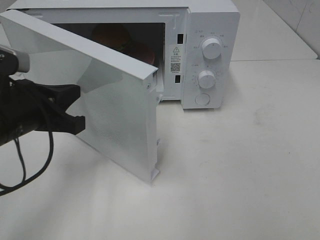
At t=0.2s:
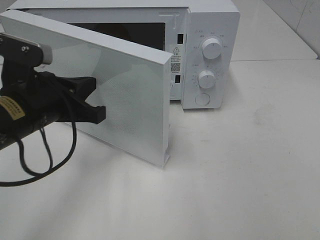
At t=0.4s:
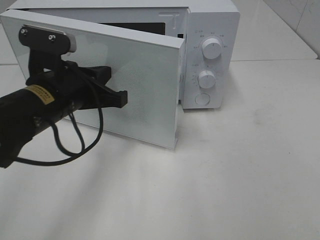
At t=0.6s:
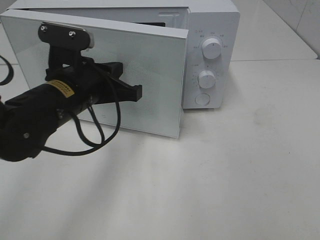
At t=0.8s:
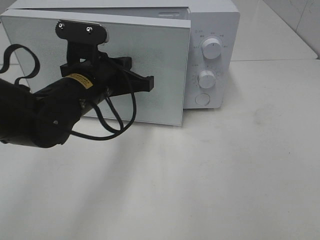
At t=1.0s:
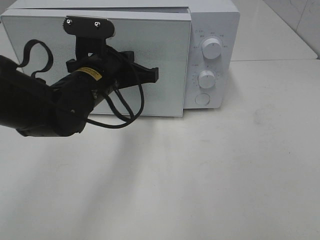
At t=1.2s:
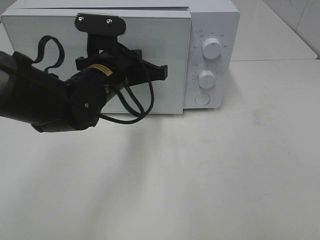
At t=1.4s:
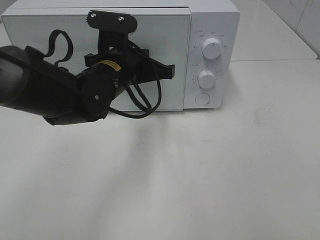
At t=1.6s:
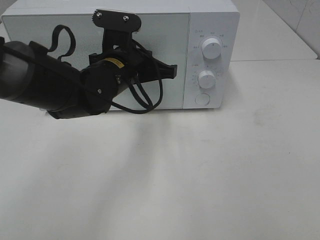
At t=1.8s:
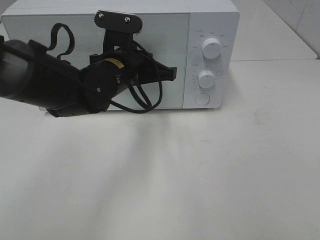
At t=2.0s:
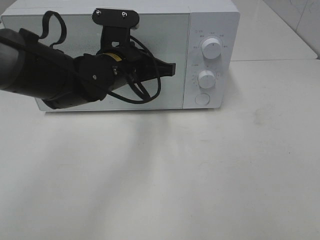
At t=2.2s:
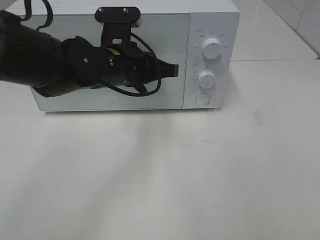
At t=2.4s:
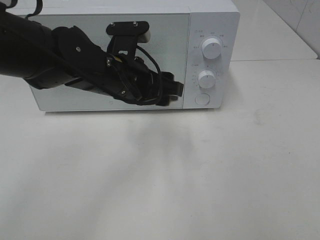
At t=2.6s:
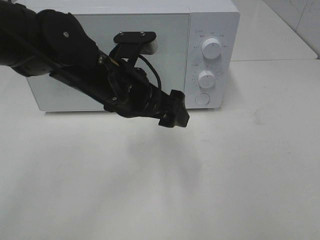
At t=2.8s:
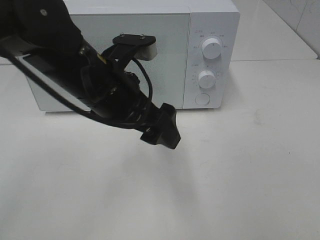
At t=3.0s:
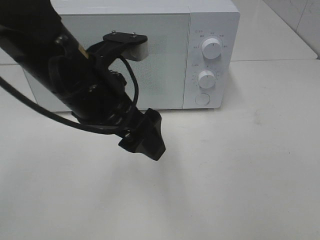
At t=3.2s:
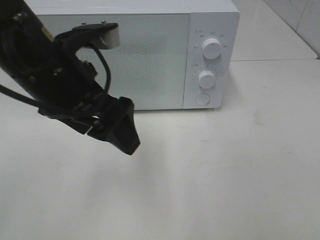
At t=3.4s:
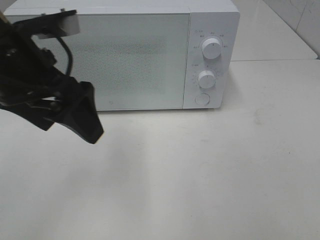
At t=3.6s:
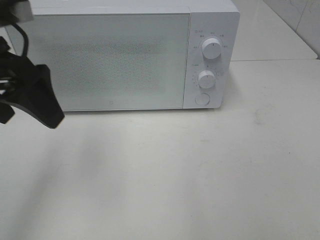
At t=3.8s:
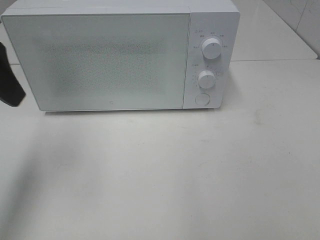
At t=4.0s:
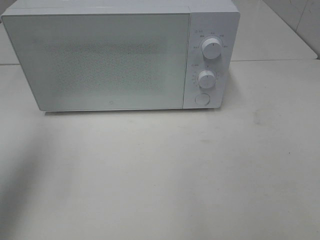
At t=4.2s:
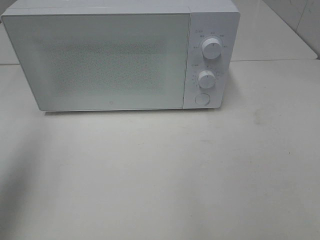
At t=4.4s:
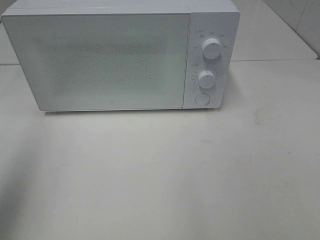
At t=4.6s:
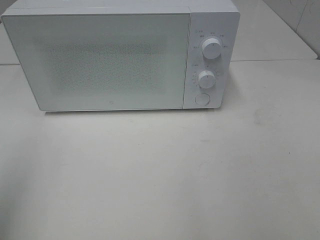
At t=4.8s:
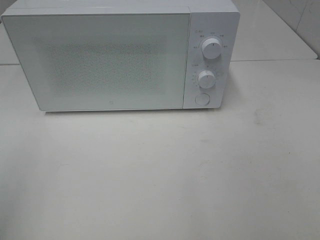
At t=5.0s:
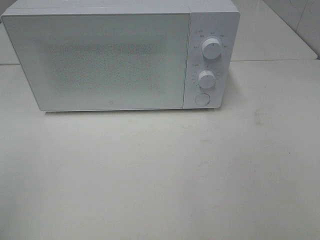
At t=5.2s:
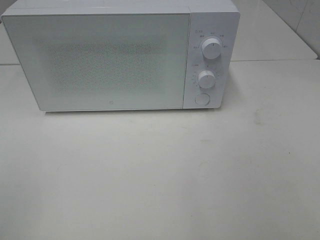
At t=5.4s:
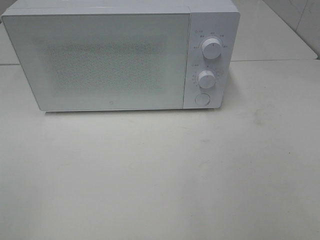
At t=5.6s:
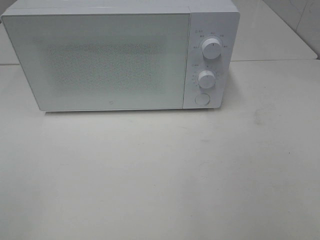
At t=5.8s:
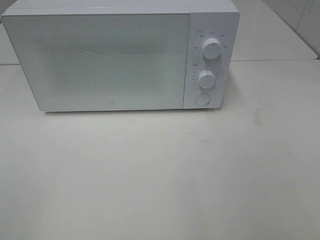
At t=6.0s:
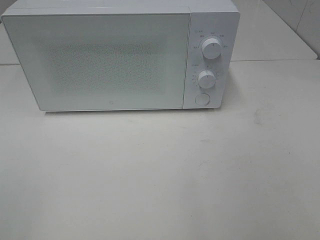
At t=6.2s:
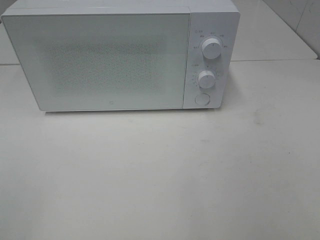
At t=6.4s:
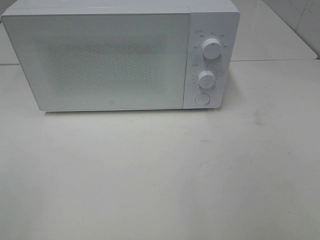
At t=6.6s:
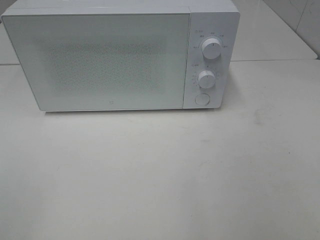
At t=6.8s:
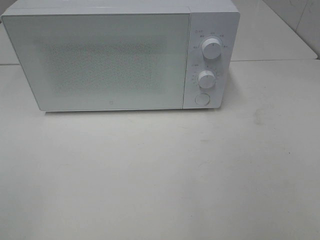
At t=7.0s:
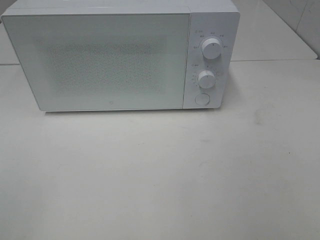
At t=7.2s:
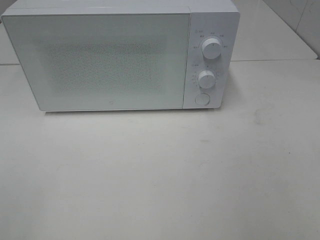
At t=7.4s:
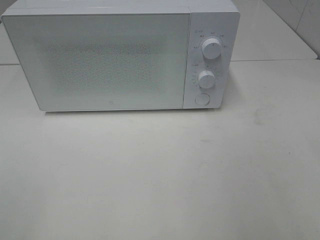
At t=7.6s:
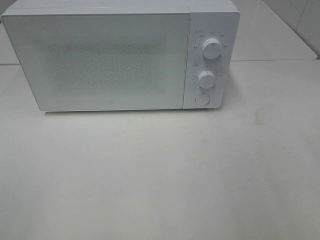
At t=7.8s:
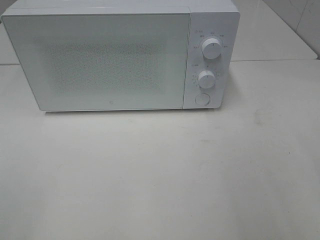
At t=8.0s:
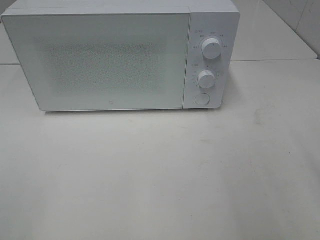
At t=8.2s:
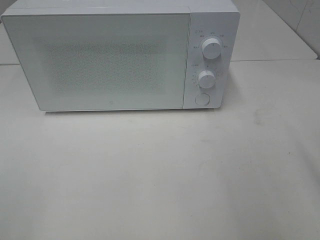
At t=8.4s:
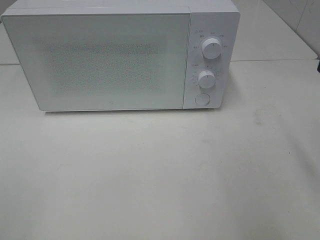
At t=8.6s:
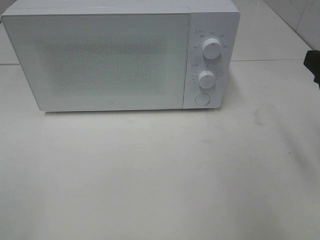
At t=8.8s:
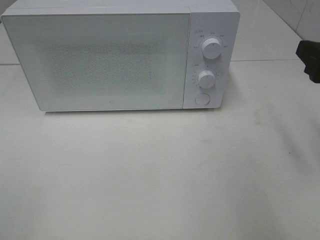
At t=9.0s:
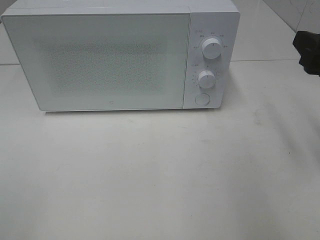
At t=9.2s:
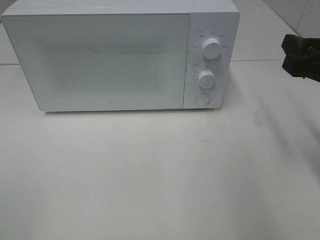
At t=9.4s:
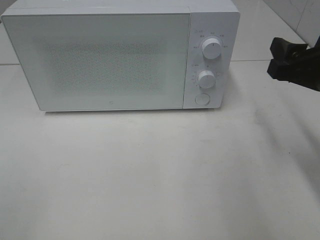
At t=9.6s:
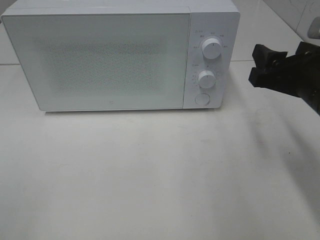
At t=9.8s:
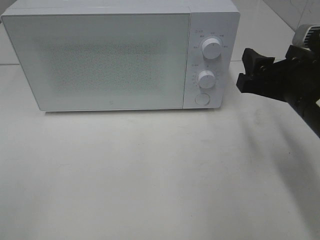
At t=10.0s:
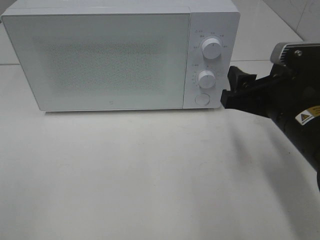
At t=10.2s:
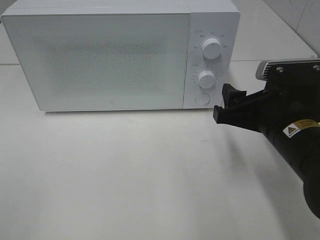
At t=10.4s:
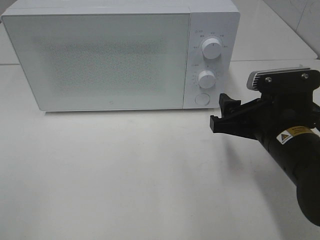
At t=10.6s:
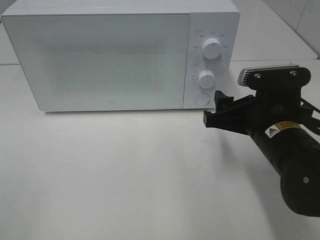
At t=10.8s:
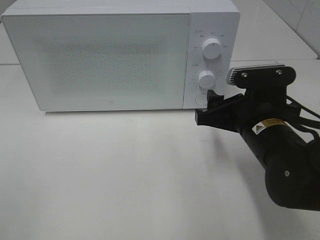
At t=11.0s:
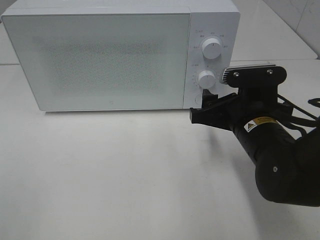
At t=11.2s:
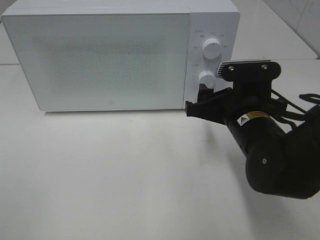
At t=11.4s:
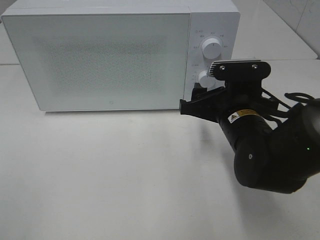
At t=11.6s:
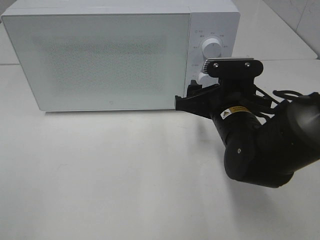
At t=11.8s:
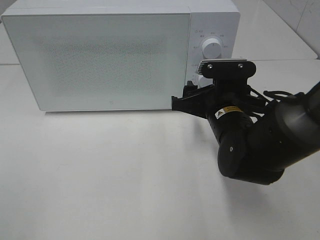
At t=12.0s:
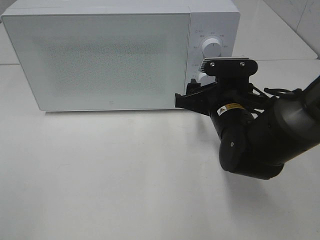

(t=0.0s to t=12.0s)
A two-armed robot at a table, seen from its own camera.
Task of the whole recording: Heat the burger.
Step, t=0.0s - t=2.2s: Left hand: close the microwave door.
t=0.0s - t=1.6s: The left gripper heads to the right and forward, covering some 15 cm.
t=1.6s - t=3.0s: The left gripper travels backward and upward by roughly 15 cm, and opens up.
t=3.0s - t=4.4s: The left gripper goes some 30 cm to the left and upward.
t=4.4s - t=6.0s: The left gripper shifts about 20 cm backward and downward.
t=7.6s - t=9.0s: The right gripper moves forward, approximately 15 cm.
t=9.0s - t=10.4s: The right gripper moves to the left and downward, some 15 cm.
t=10.4s - t=12.0s: The right gripper is displaced forward by about 10 cm.

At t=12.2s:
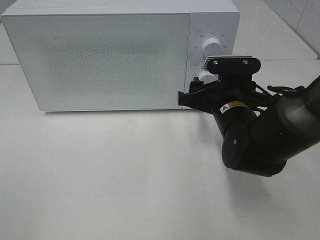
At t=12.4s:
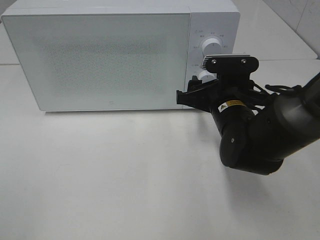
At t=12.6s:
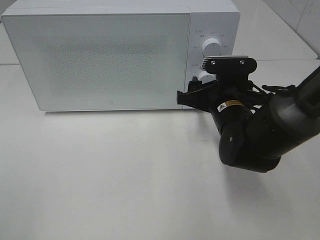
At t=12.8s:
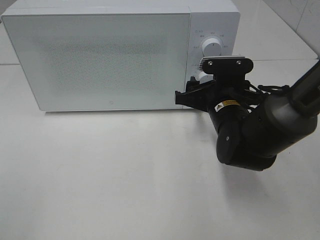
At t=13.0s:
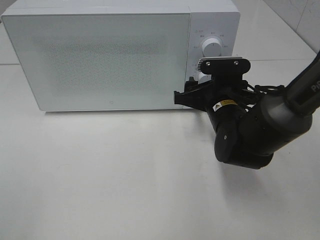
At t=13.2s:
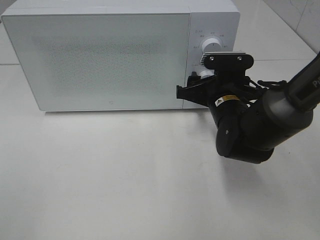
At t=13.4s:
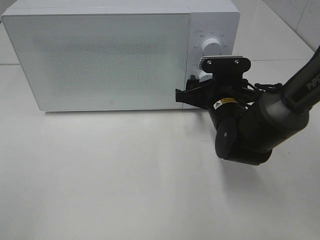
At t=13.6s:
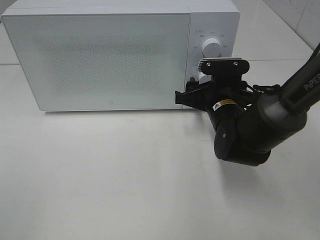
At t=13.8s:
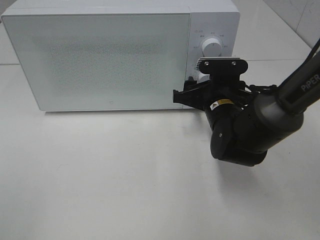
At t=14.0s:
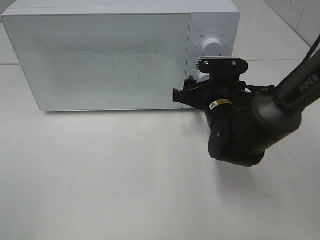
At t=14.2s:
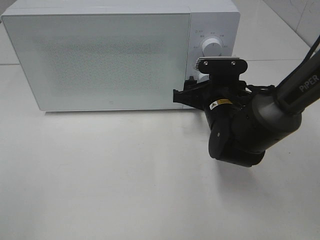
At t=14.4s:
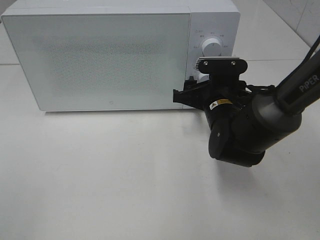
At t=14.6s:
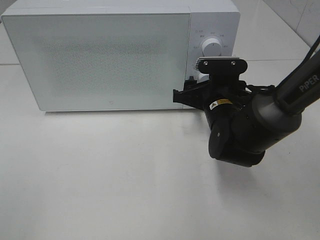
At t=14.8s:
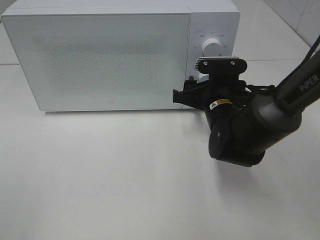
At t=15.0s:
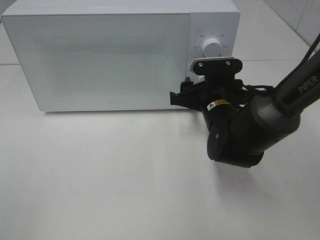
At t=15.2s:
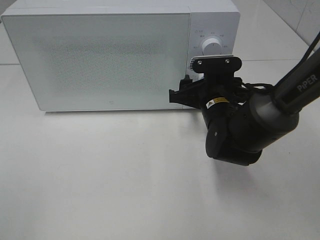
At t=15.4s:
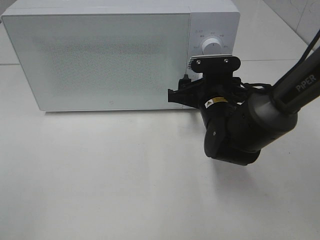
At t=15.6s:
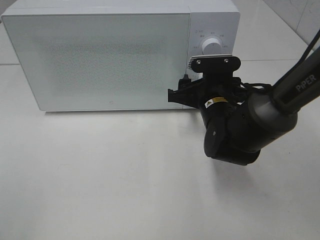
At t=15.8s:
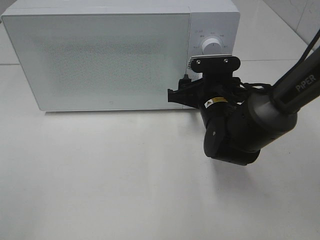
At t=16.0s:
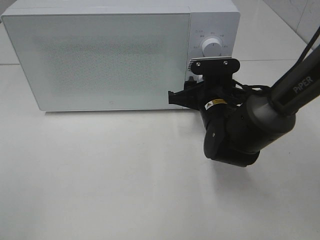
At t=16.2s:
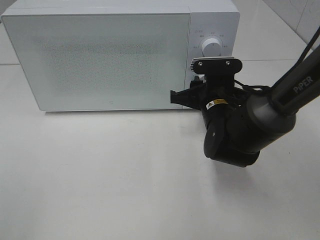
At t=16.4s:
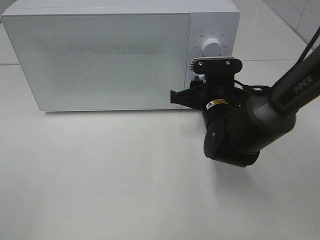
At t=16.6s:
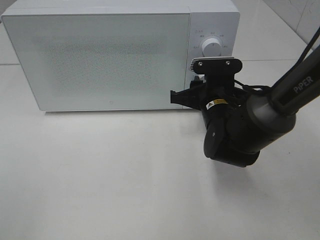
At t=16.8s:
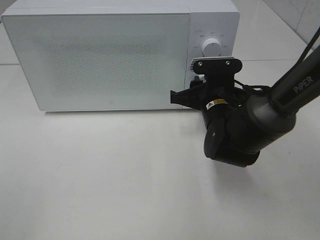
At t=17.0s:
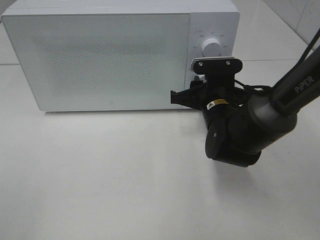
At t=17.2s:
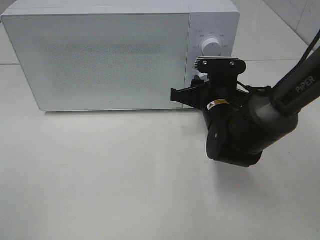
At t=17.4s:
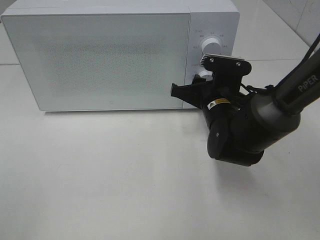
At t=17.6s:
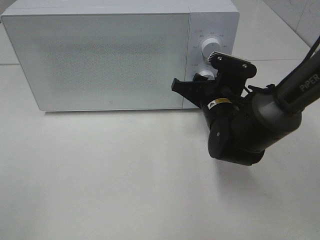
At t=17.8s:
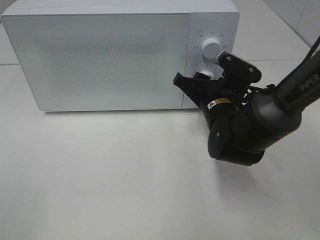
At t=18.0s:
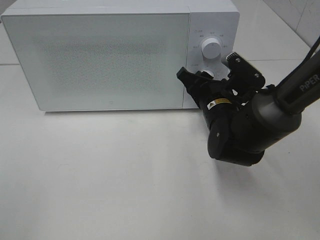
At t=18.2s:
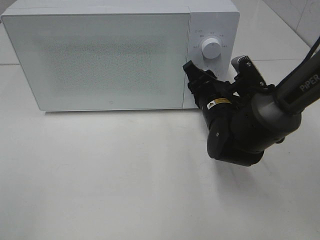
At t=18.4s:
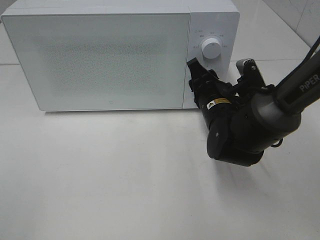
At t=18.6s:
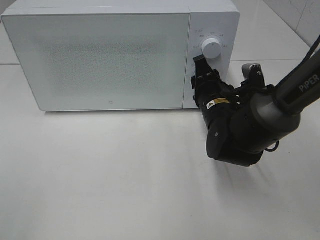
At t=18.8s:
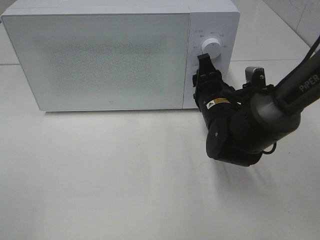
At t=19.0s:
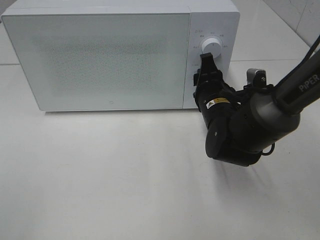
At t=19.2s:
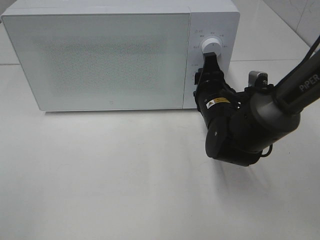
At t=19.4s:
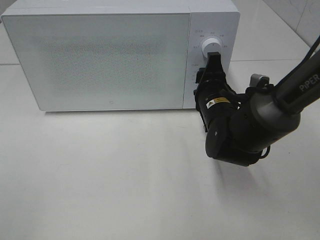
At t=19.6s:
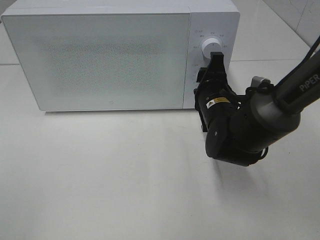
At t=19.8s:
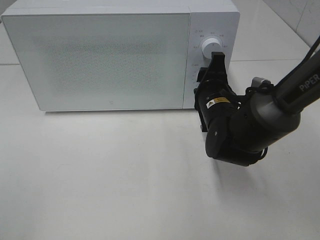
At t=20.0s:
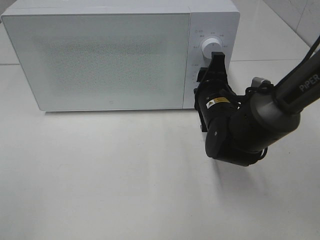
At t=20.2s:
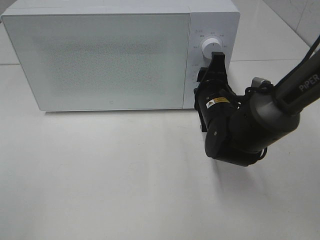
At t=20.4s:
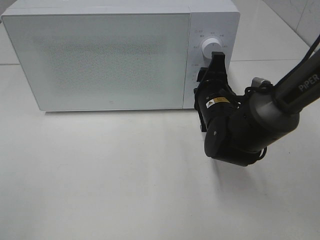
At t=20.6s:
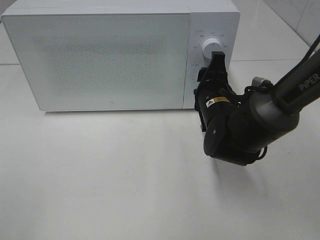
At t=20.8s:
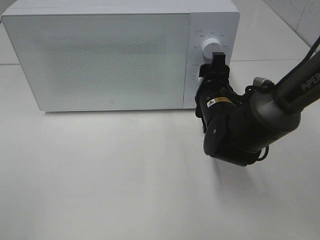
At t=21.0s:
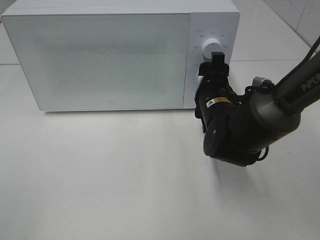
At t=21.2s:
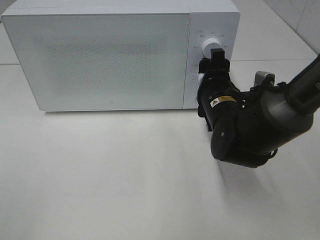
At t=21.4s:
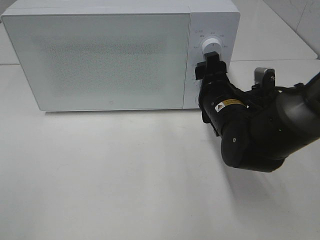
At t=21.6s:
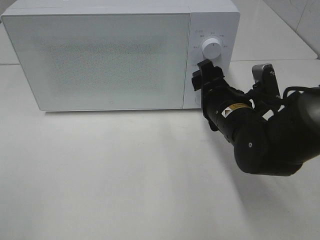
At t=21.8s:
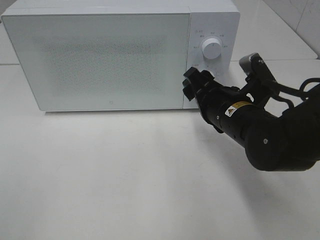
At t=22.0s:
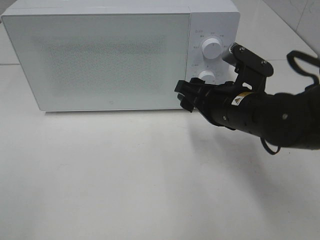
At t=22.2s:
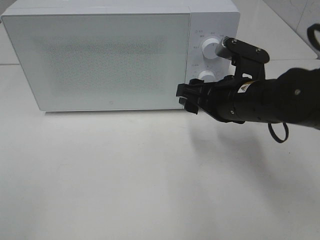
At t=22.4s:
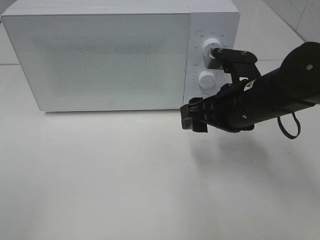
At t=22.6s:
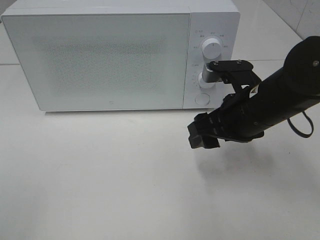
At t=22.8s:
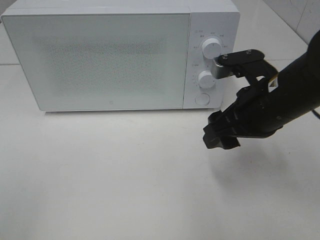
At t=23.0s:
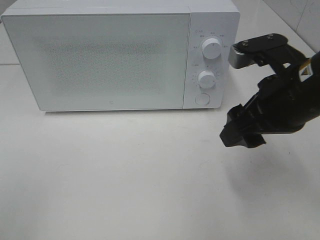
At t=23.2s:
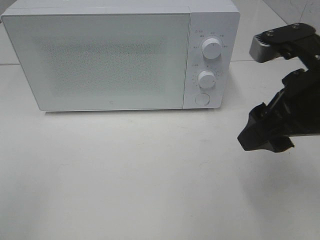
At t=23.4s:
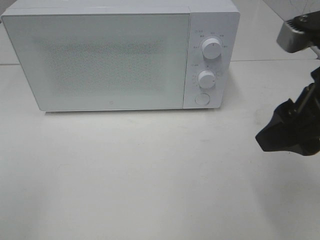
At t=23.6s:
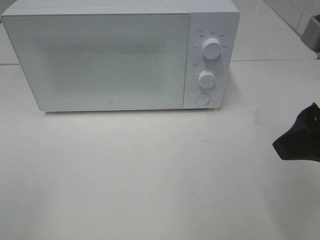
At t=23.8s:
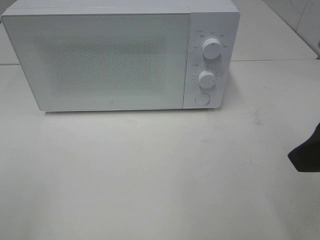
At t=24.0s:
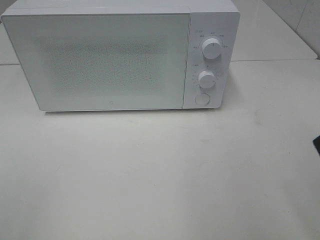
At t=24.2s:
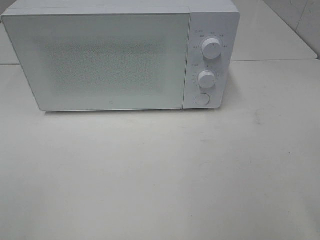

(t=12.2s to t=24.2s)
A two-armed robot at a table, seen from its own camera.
Task of the whole recording: Heat the burger.
Step, t=12.2s - t=21.0s: Right hand: twist timer button.
t=12.2s - t=13.8s: The grippers make only small movements.
t=13.8s - t=16.6s: Neither gripper changes place.
t=19.8s - t=21.2s: The grippers move only a little.
t=21.2s - t=22.6s: The right gripper heads backward, covering about 5 cm.
t=22.6s - t=24.2s: The right gripper travels backward, upward and to the right by some 25 cm.
